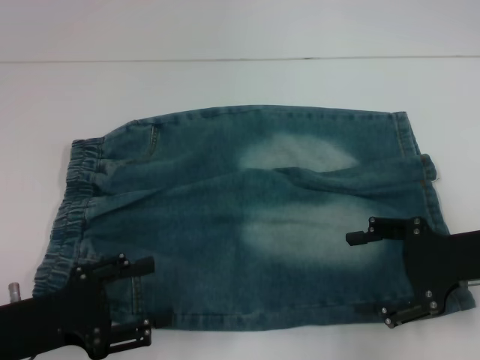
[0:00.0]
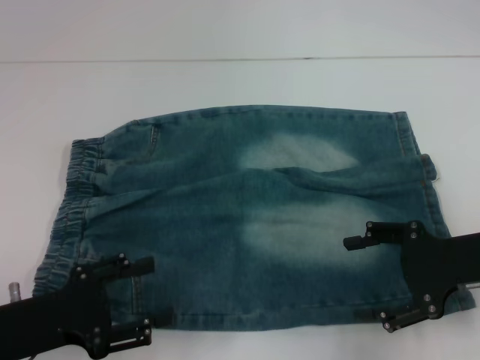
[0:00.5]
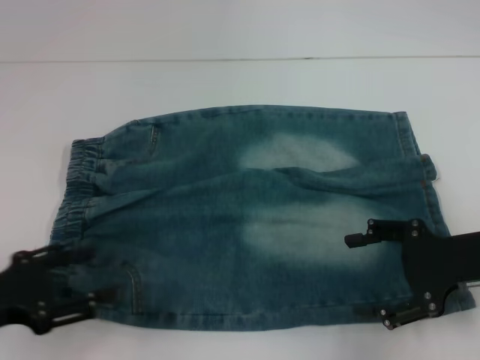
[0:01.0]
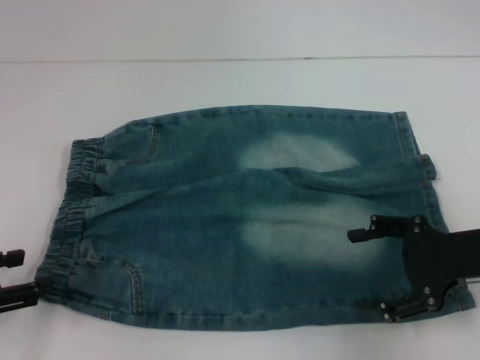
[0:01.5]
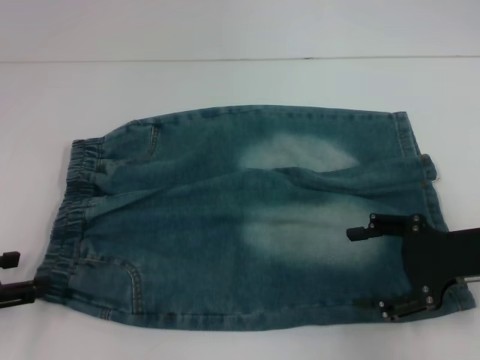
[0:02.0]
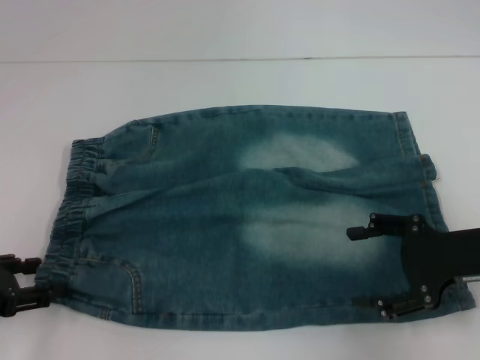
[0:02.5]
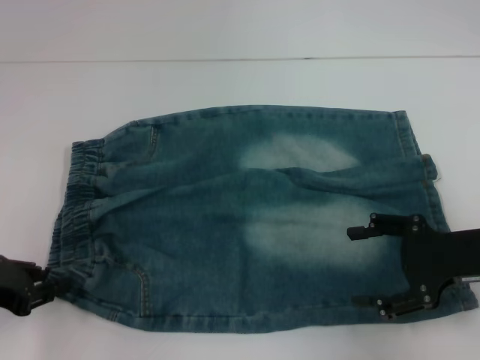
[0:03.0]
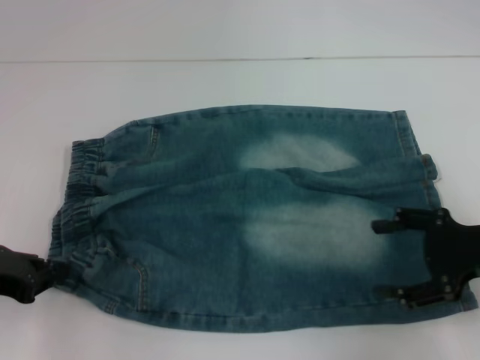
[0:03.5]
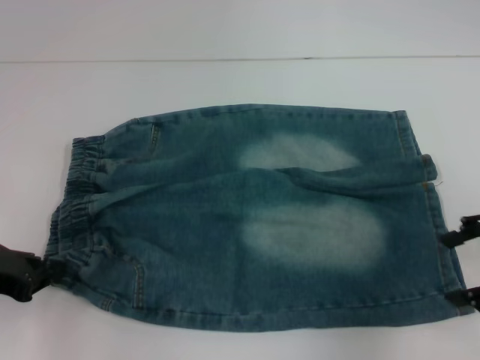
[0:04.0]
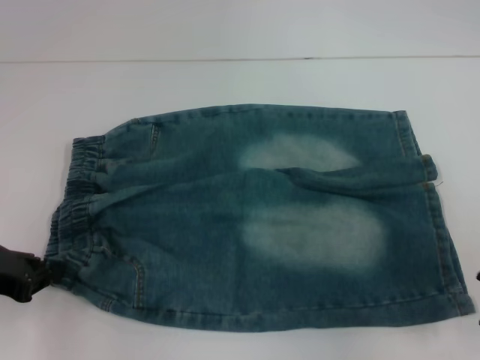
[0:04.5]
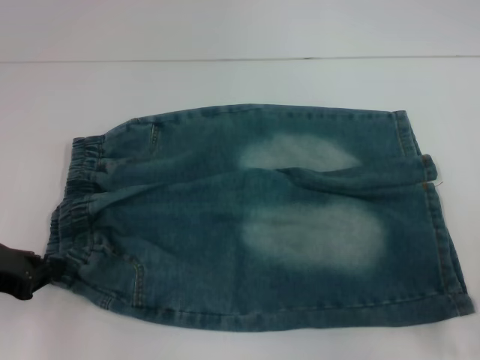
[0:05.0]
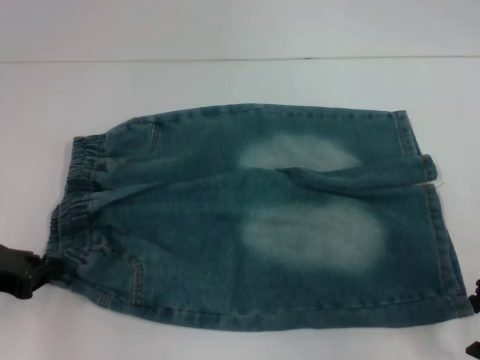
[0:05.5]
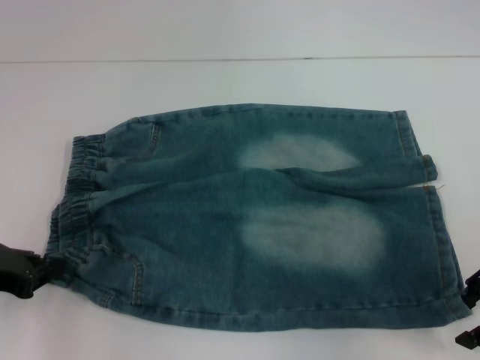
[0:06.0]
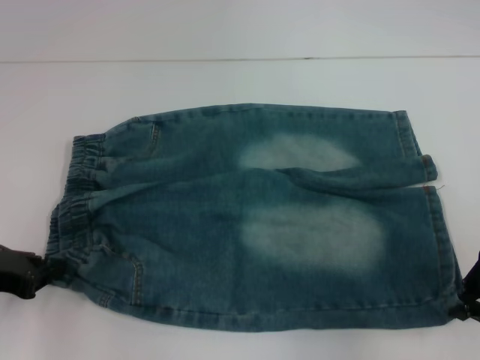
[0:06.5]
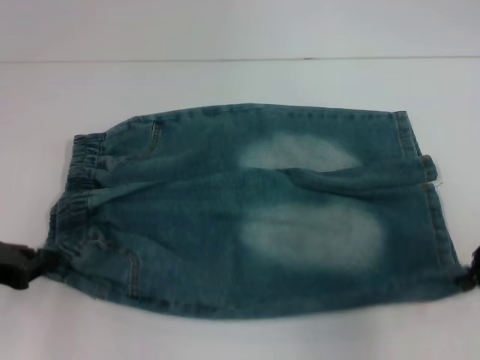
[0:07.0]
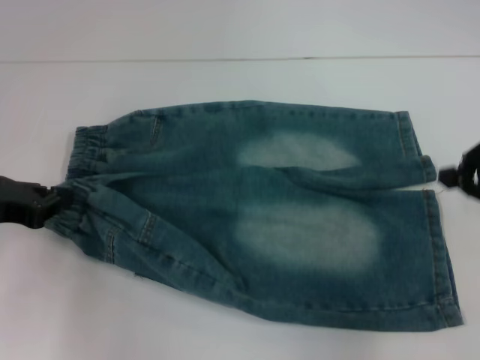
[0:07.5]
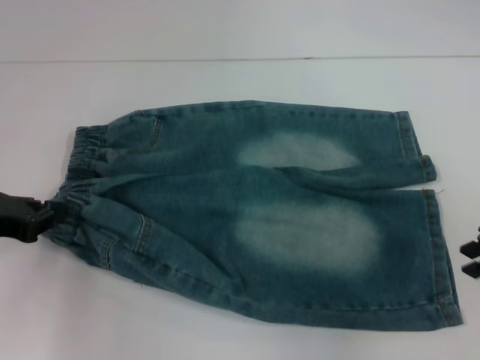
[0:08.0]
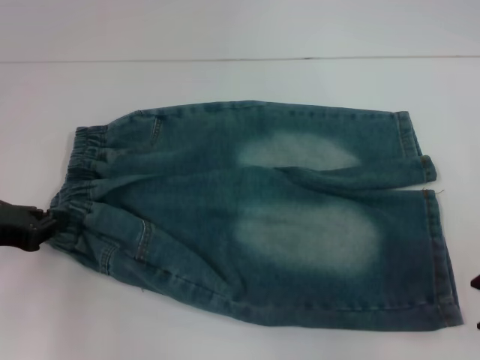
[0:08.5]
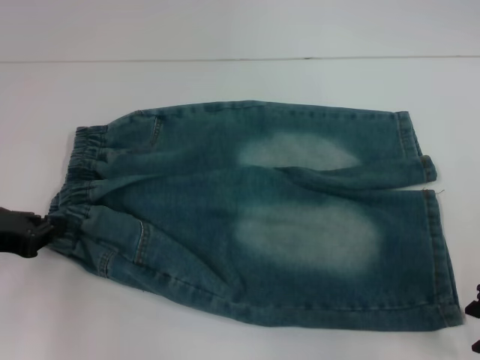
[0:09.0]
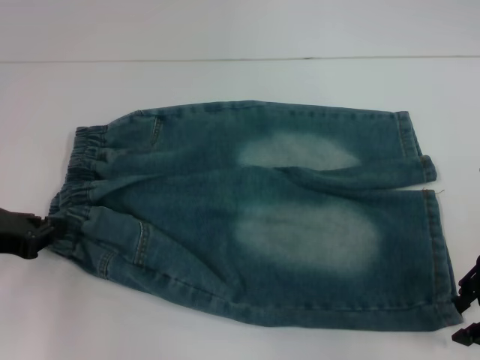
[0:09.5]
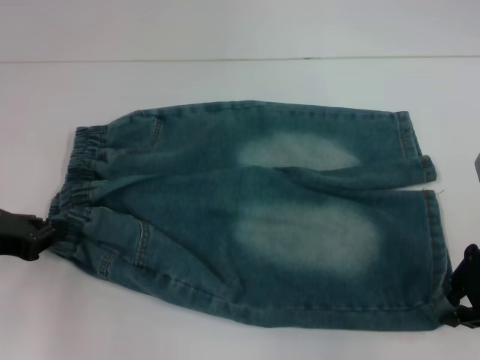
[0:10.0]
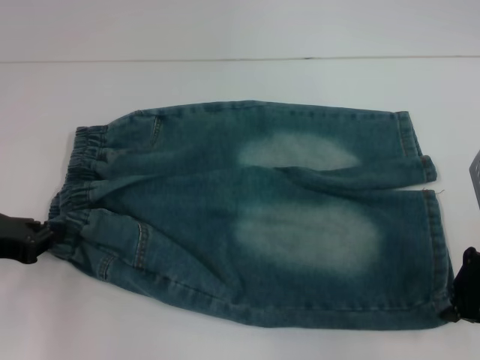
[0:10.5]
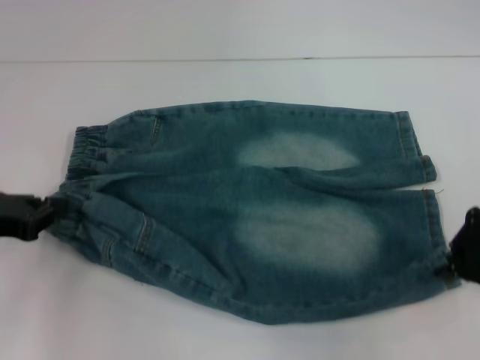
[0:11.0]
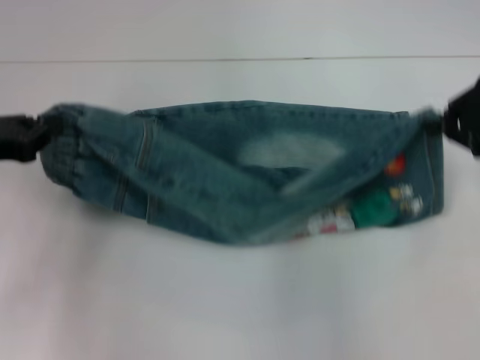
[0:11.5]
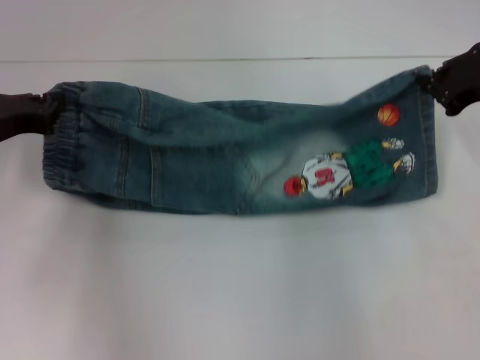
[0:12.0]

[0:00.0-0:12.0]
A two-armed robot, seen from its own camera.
Step, 0:00.0 to 0:03.0: Hold the lower left waistband with your left hand.
Step, 0:03.5 to 0:10.5: Grab the lower right pant leg with your right hand.
0:00.0 to 0:02.0: The left gripper travels to the left by about 10 cm.
0:02.0 to 0:04.0: The left gripper closes up, while the right gripper travels upward by some 5 cm.
0:06.0 to 0:08.0: The right gripper closes up.
0:08.0 to 0:10.0: The right gripper ends up approximately 5 cm from where it was.
0:10.0 to 0:12.0: Both grippers travel together forward, some 10 cm. The right gripper closes.

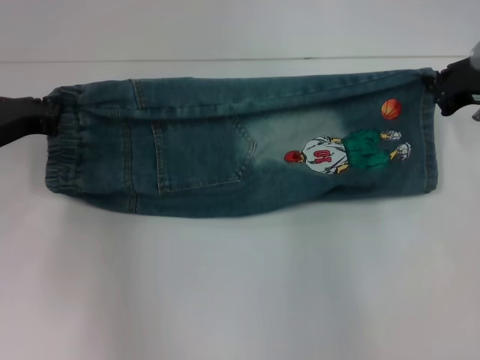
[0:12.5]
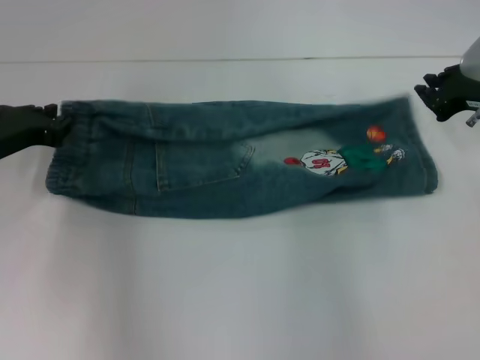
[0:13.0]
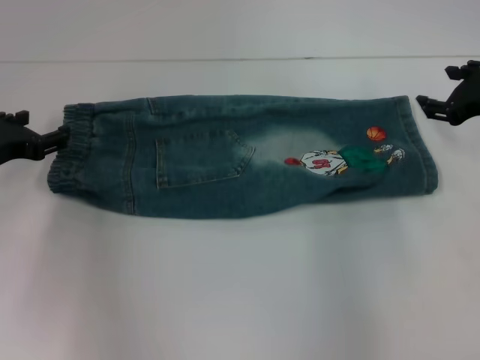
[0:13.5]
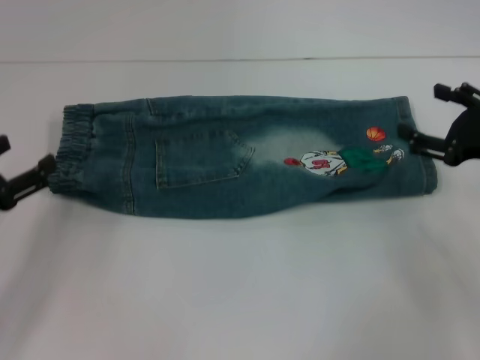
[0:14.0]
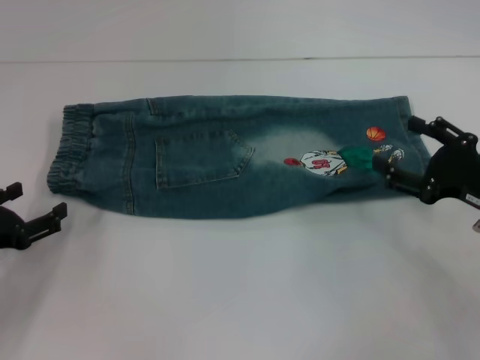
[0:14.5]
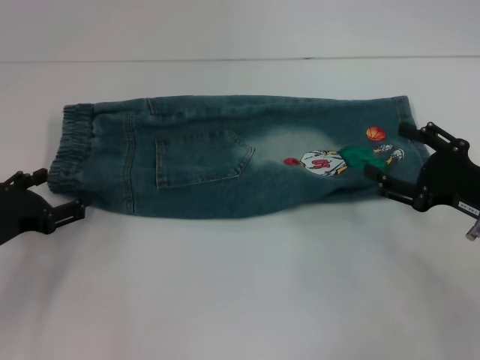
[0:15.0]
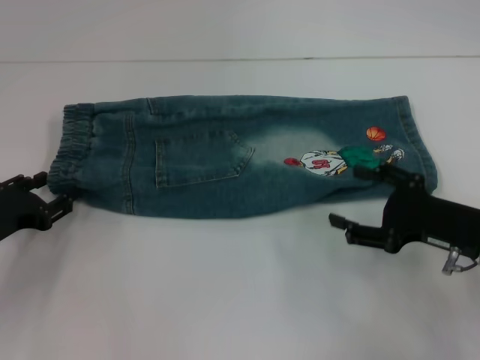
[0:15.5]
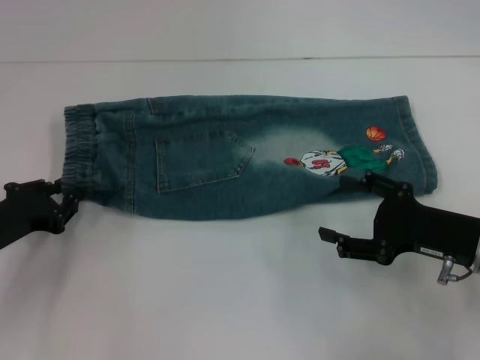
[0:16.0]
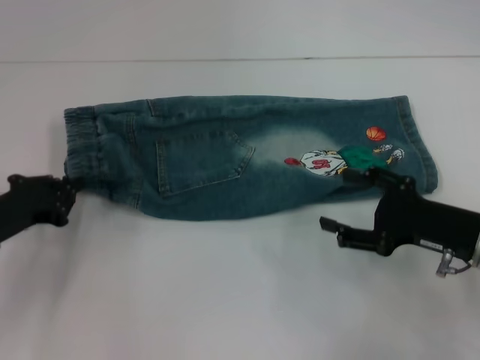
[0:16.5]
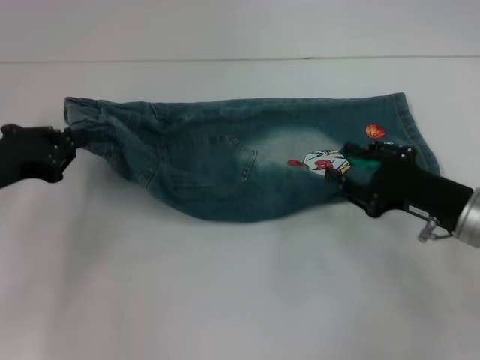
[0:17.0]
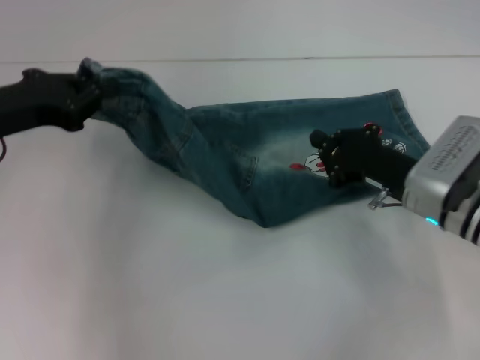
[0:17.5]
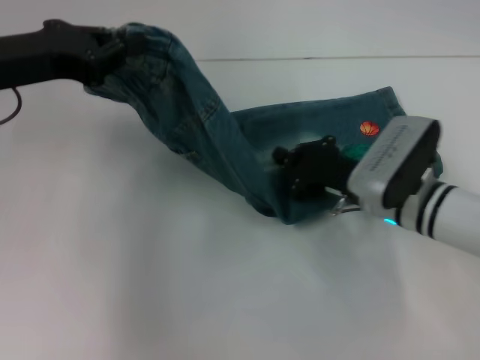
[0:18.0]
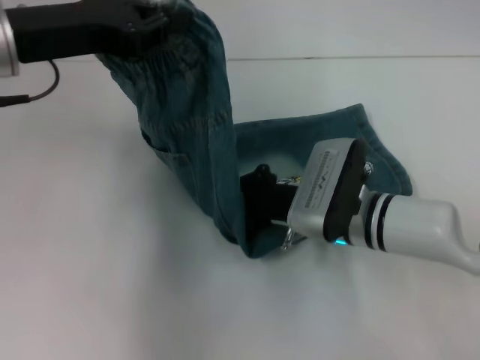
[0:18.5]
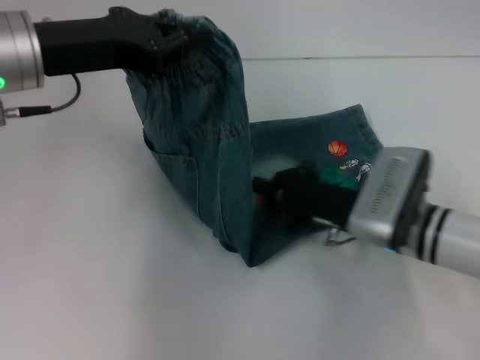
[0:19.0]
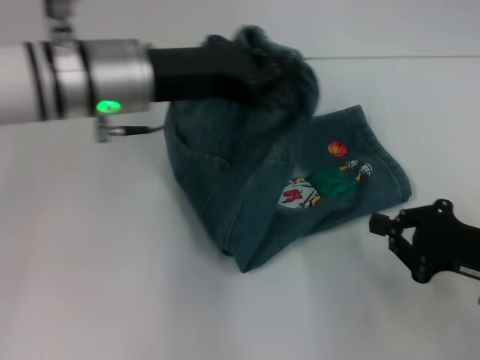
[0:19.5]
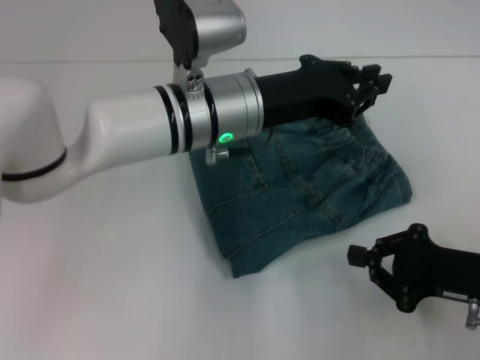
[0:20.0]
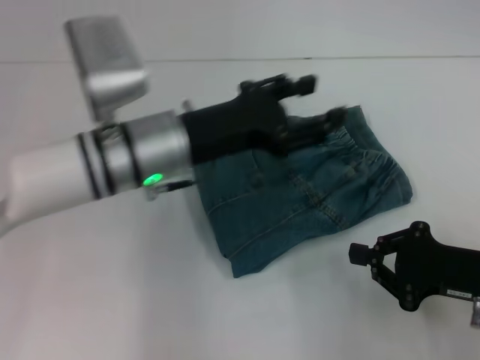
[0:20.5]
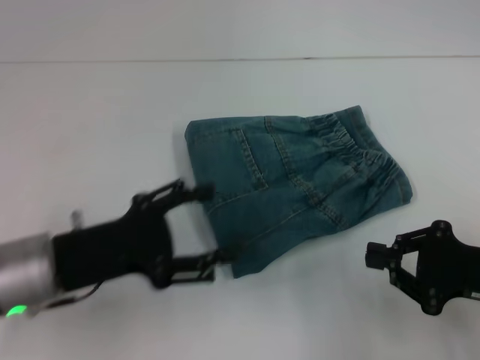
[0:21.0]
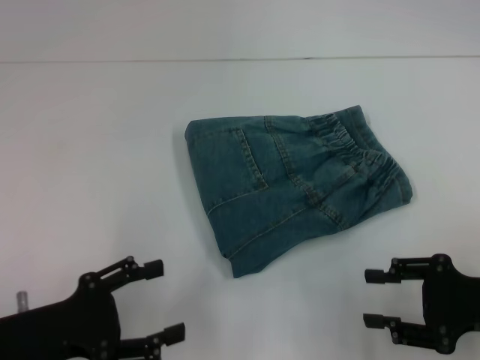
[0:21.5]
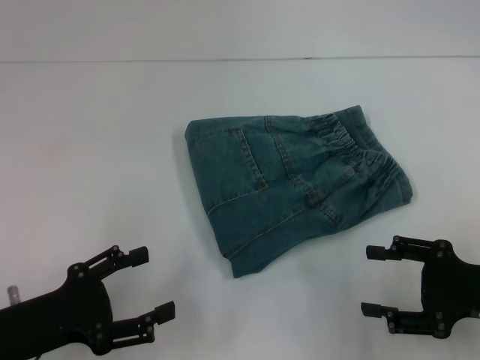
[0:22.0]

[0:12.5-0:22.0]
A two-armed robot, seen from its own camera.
Step, 0:14.0 to 0:16.0: Hold the waistband with your left hand.
Step, 0:17.0 to 0:19.0: Press the middle of the pants with your right hand.
Step, 0:19.5 to 0:20.0: Fold to the right with your left hand.
0:12.5 to 0:14.5: The two grippers go some 15 cm backward and downward. The left gripper opens its fingers. The right gripper opens.
0:14.5 to 0:16.5: The left gripper shifts by some 5 cm, and closes.
0:16.5 to 0:18.0: The right gripper goes about 10 cm to the left and forward, and closes its fingers. The left gripper goes some 15 cm upward.
0:18.0 to 0:20.0: The right gripper goes about 15 cm to the right and backward. Meanwhile the left gripper moves to the right, roughly 20 cm.
0:20.0 to 0:22.0: The right gripper opens up. Meanwhile the left gripper moves to the left, backward and downward, some 30 cm, and opens up.
